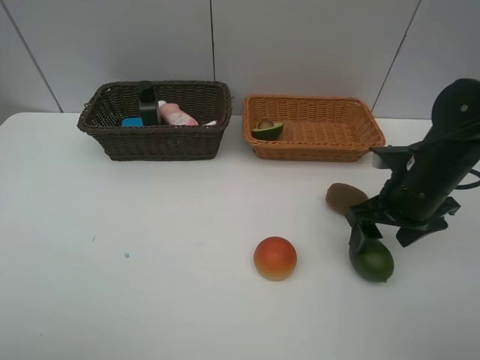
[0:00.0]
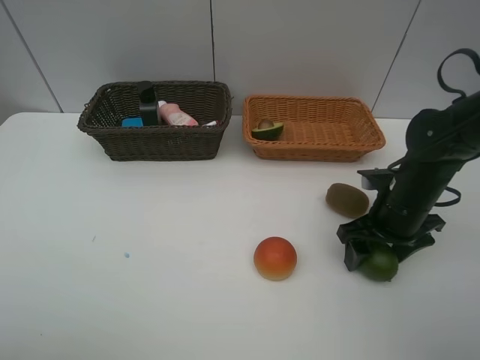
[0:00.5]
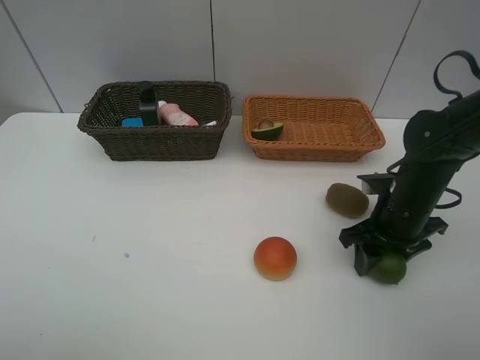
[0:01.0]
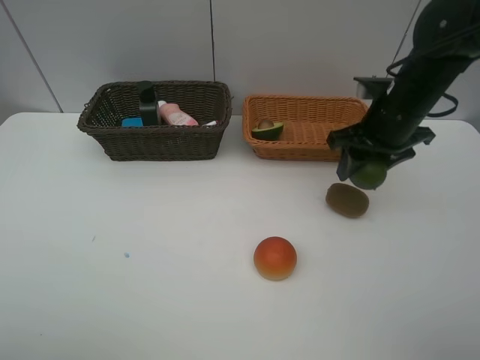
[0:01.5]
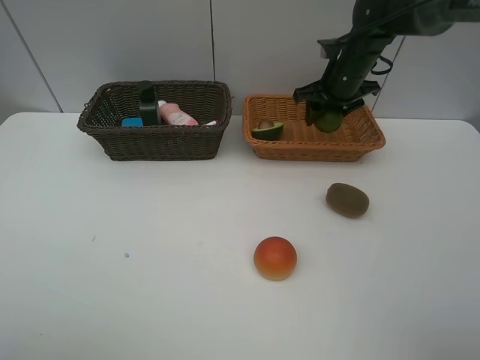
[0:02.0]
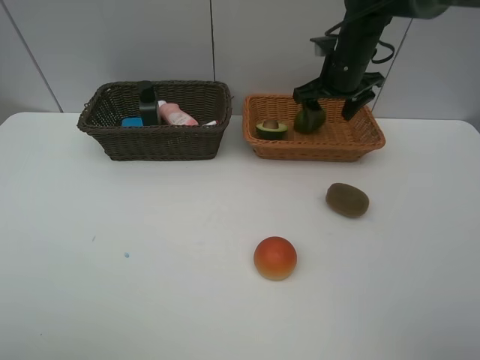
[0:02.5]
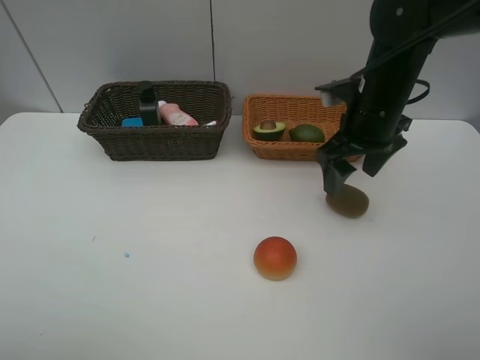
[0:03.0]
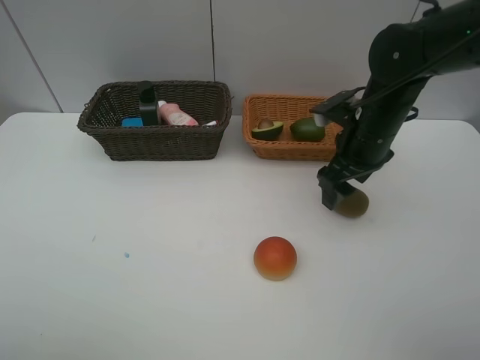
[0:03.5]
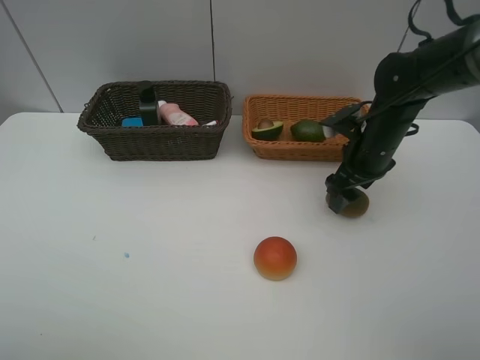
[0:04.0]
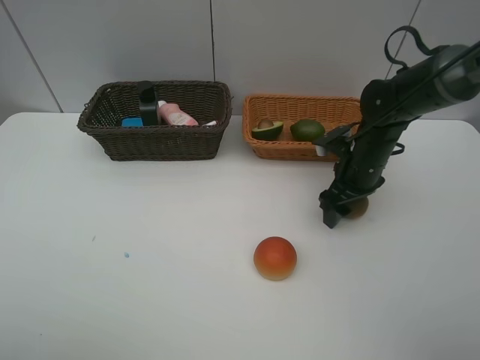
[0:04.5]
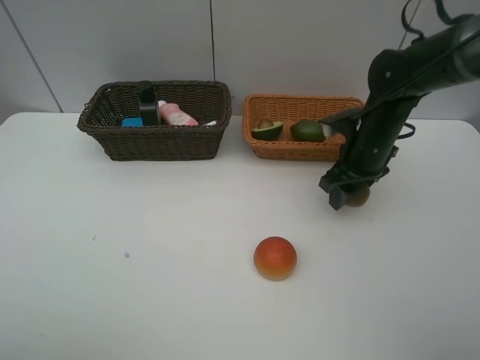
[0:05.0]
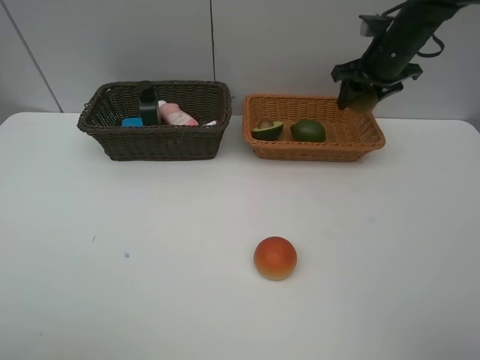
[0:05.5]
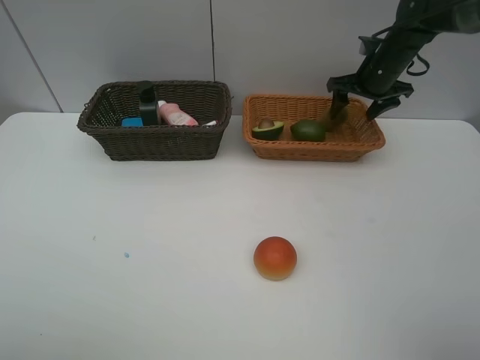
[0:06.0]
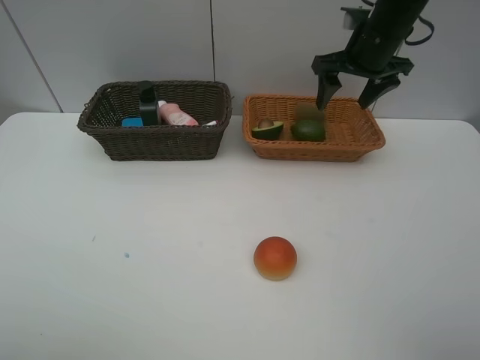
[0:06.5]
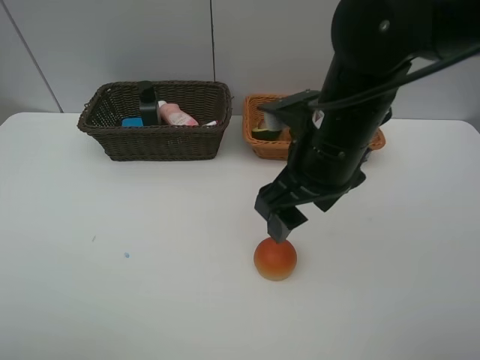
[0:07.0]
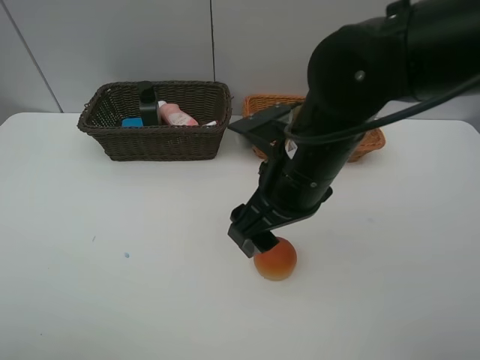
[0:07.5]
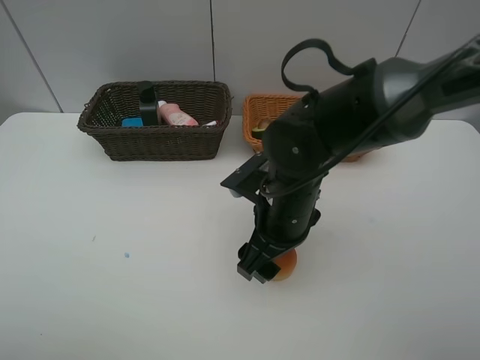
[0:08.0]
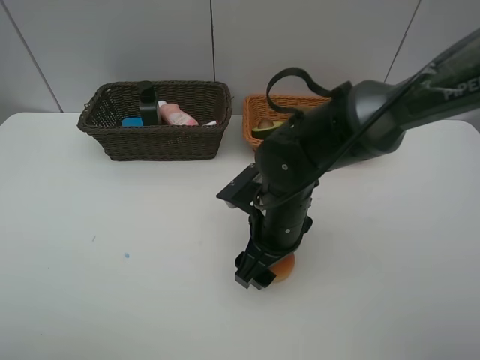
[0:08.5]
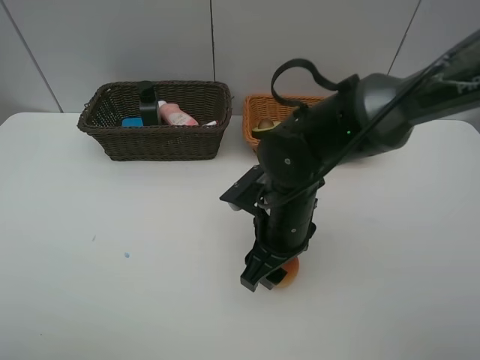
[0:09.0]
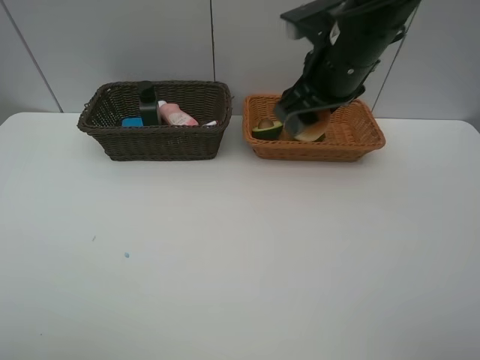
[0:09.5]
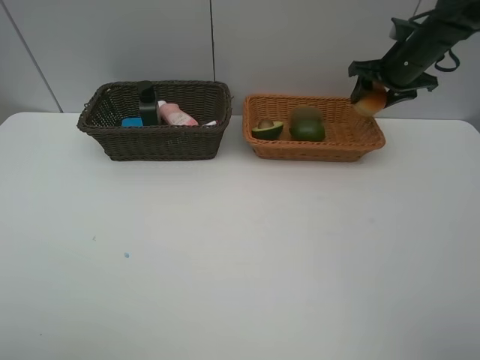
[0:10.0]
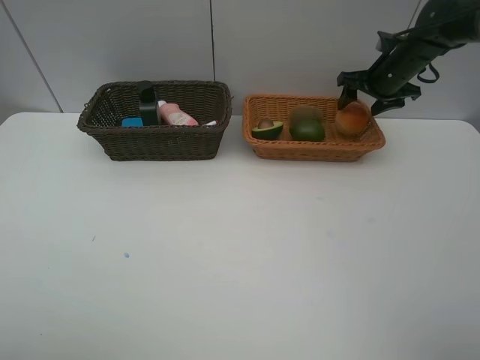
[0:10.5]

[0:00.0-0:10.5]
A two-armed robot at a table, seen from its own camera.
Task of the whole recording: Place multiple objects separately in different baskets.
Step, 0:01.5 to 0:02.5: Place the lime in the light basket with right gripper.
Step, 0:03.0 to 0:05.0: Pick up kiwi with right gripper.
Step, 0:05.5 to 0:06.0: Place the kiwi in the light basket with right gripper.
Step, 0:06.5 to 0:09.0: Pick up egg yolk pastry with right gripper.
0:00.0 to 0:02.0: The right gripper heads forward, covering approximately 20 cm, and closes up.
0:02.0 to 0:04.0: The right gripper is displaced backward by approximately 15 cm, and opens its fingers.
0:04.0 to 0:06.5: The right gripper moves upward and forward, roughly 15 cm, and closes and opens again.
0:06.5 to 0:08.5: The right gripper moves backward, downward and to the left, some 30 cm.
0:08.5 to 0:10.5: The right gripper heads forward and to the right, covering some 35 cm, and closes, then reopens.

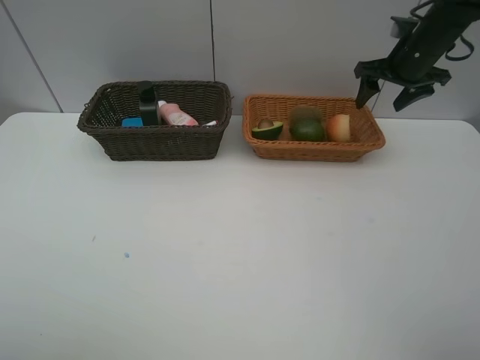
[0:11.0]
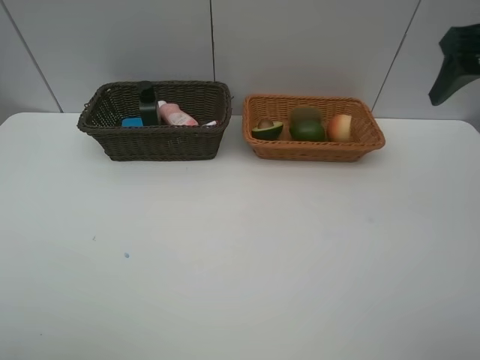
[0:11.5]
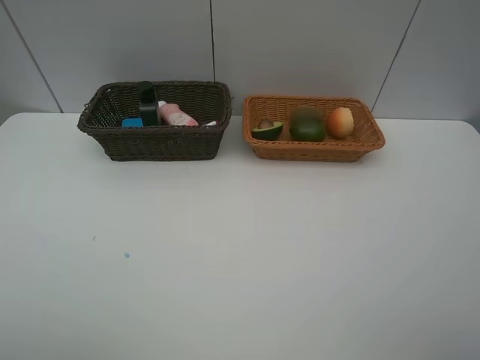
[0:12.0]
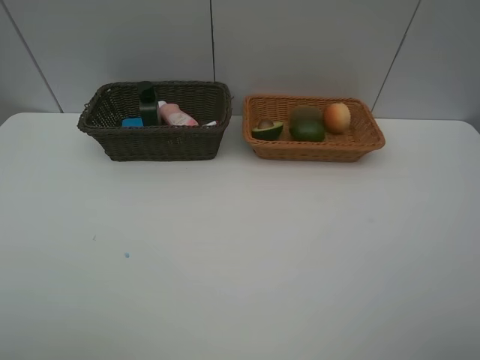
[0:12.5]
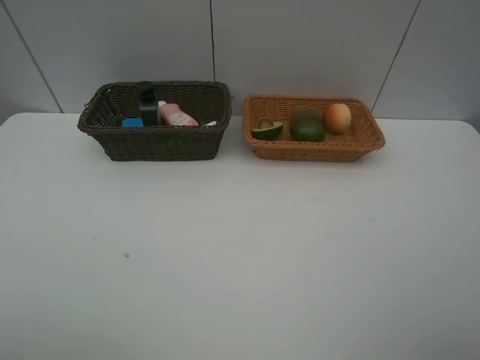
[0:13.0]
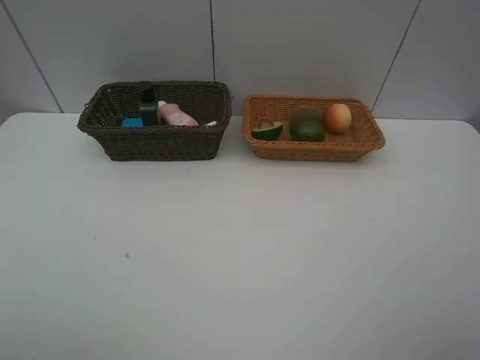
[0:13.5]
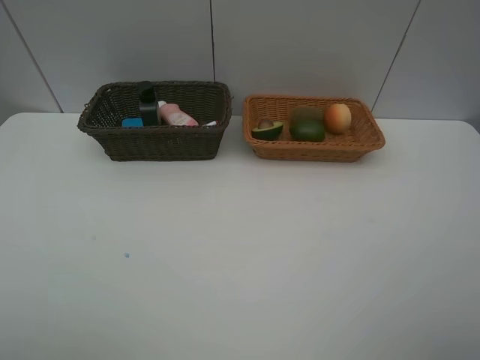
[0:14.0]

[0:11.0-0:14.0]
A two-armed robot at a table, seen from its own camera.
Task of the whole recording: Place multiple objects separately in different baskets.
0:11.0 to 0:12.5: The right gripper is displaced backward by approximately 50 cm.

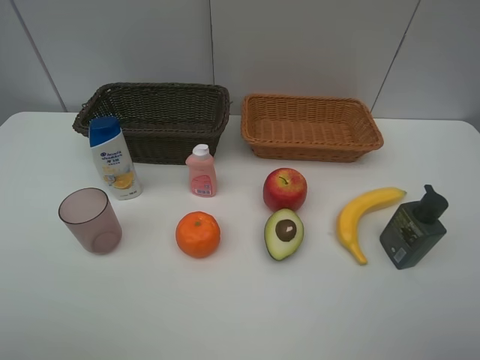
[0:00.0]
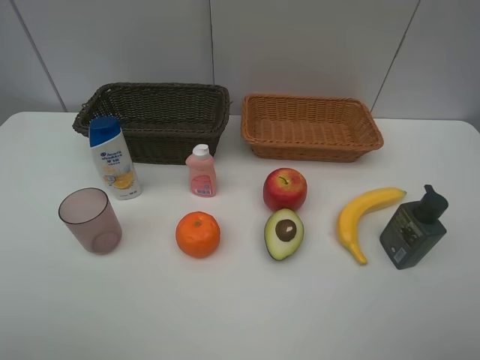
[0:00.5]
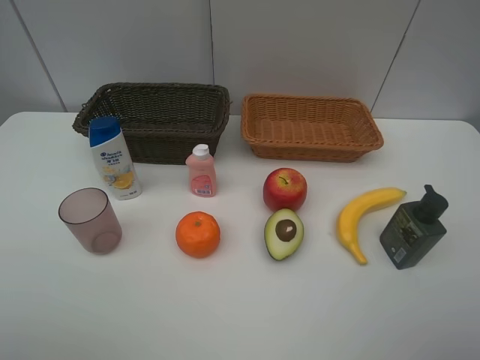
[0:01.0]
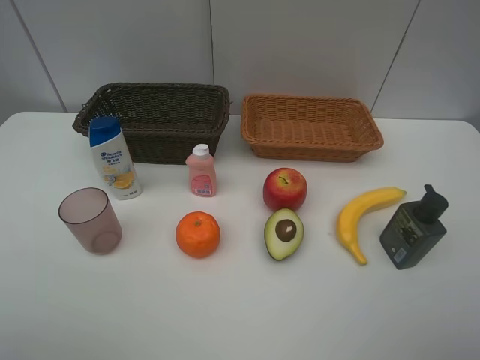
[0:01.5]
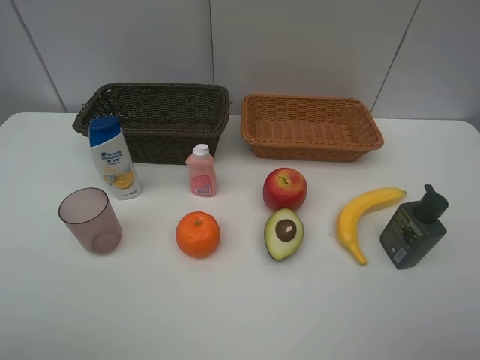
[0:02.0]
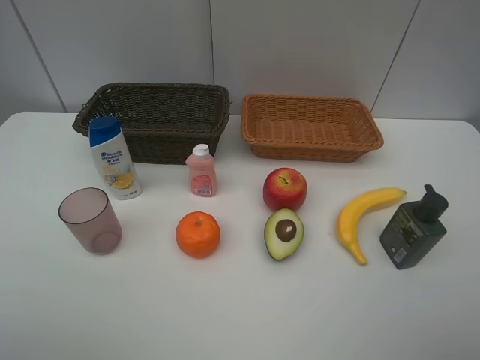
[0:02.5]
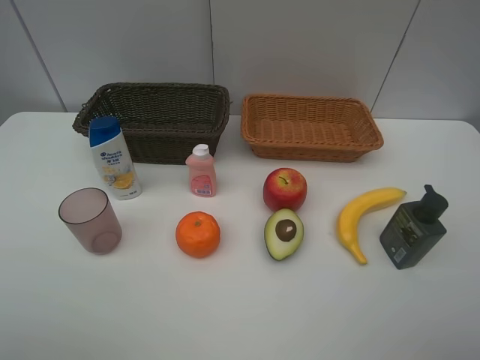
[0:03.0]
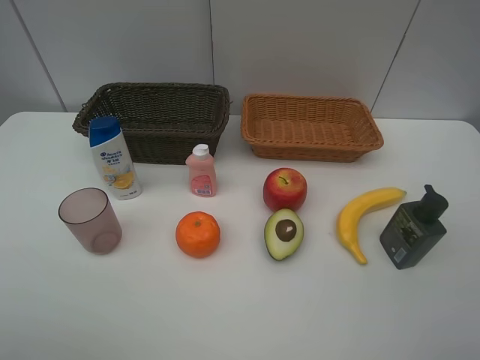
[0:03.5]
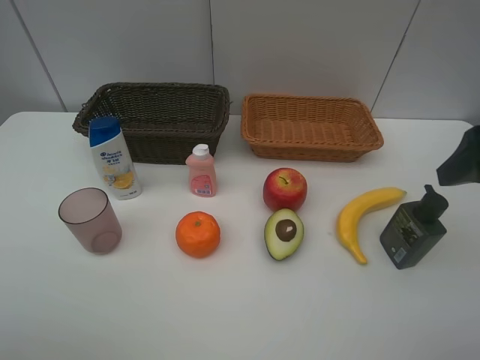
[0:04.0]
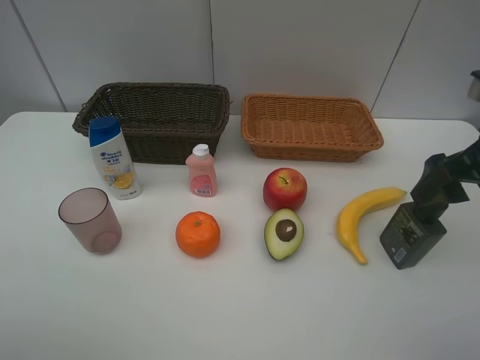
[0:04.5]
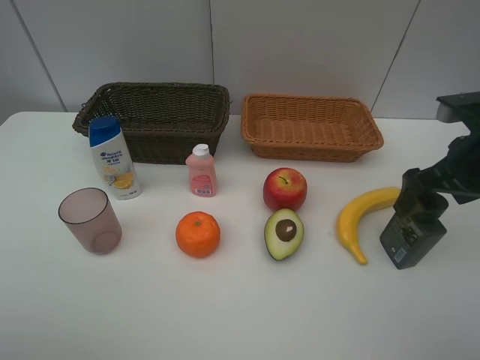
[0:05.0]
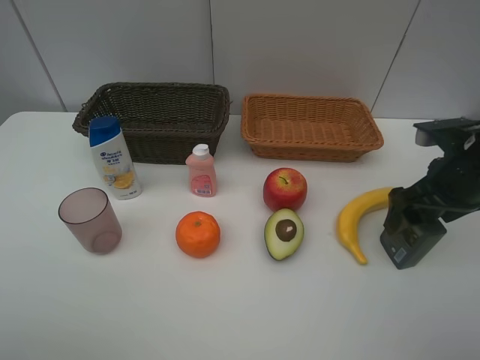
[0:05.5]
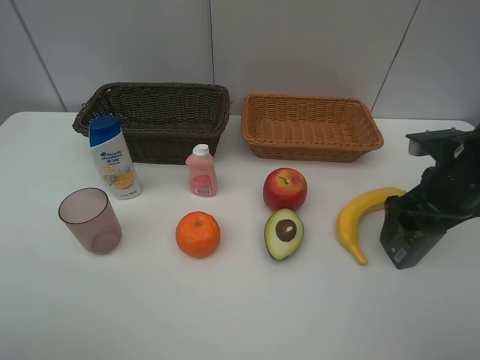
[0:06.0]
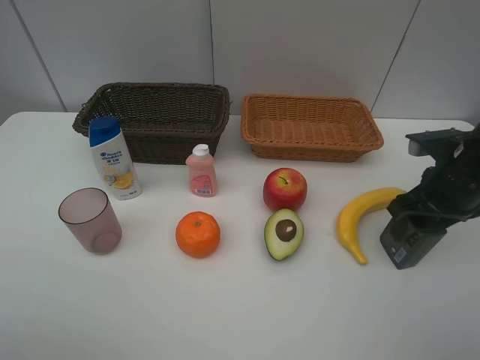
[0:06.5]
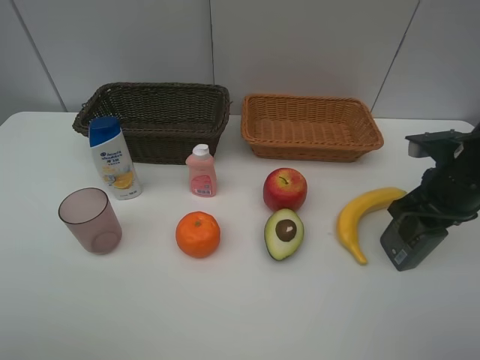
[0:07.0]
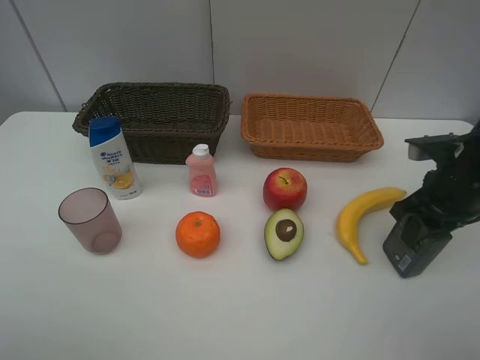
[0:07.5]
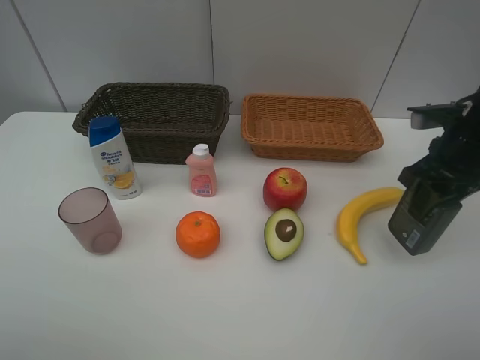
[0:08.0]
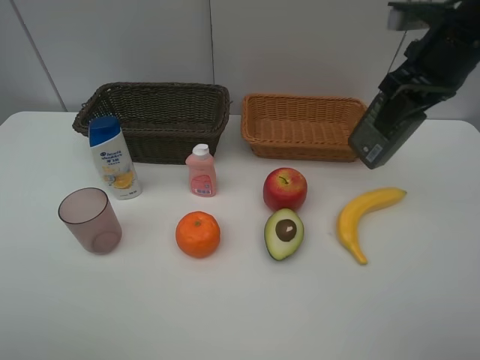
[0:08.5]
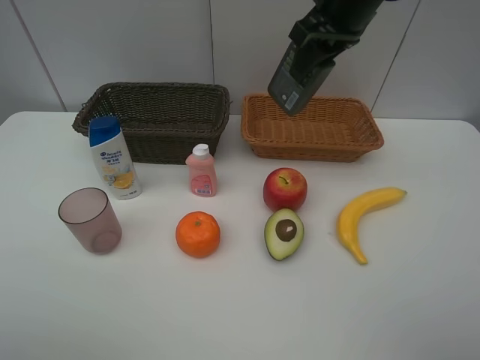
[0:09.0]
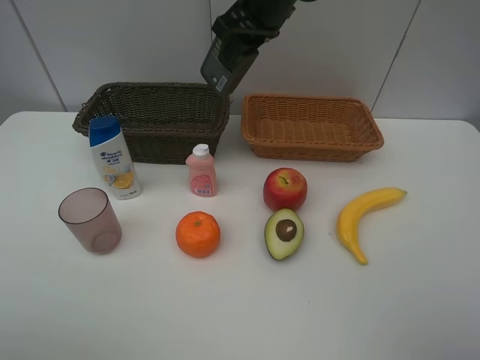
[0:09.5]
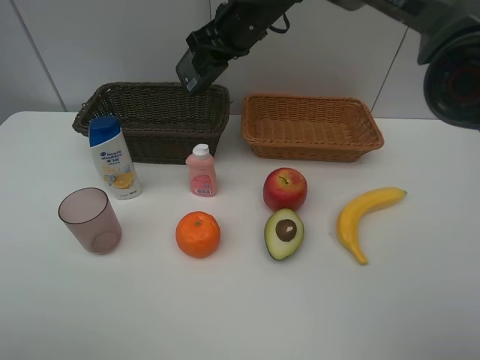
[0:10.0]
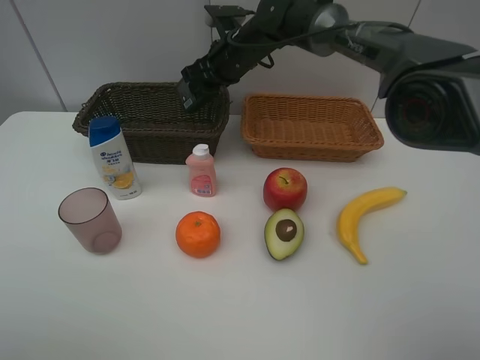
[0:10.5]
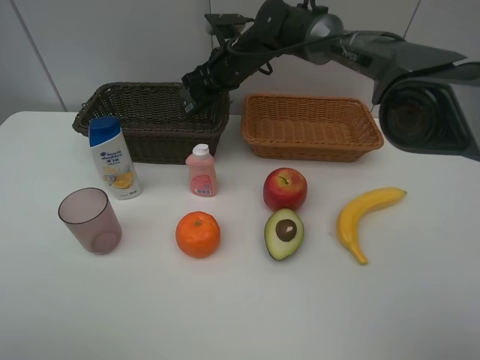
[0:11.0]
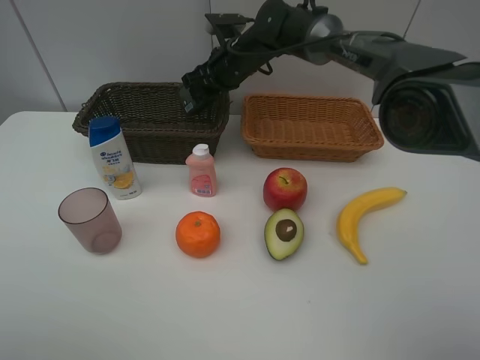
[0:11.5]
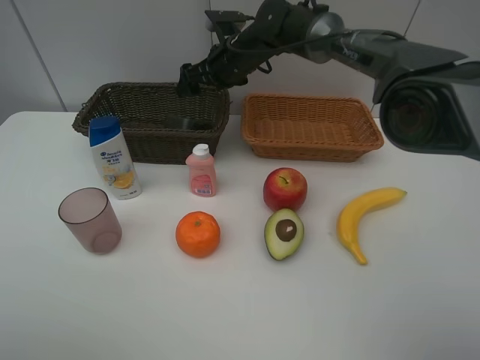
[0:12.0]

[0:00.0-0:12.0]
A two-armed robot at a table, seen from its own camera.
Task of the whole recording: Place multiple objects separately in different baskets.
Step, 0:00.0 to 0:07.5: Pick up the hard facial cleanser with right gripper.
Step, 0:08.0 to 0:12.0: Place the hard facial cleanser in the dark basket with right gripper.
0:00.0 to 0:02.0: Both grippers stay put.
0:02.0 to 0:04.0: The right gripper is displaced forward by about 15 cm.
0:04.0 to 0:06.0: The right gripper moves downward and forward, some 15 cm.
0:06.0 to 0:08.0: The right gripper moves approximately 5 cm, and closes its fingers.
0:08.0 to 0:10.0: The right gripper goes some 30 cm to the left and forward.
0:10.0 to 0:12.0: The right gripper travels downward by roughly 5 cm, and opens its fingers.
